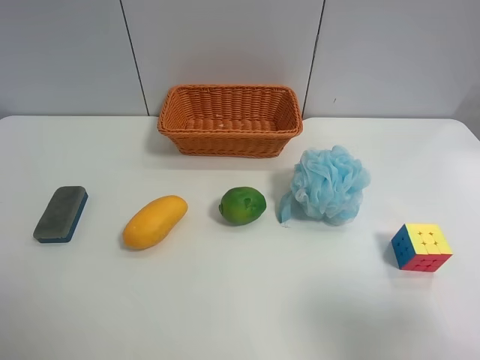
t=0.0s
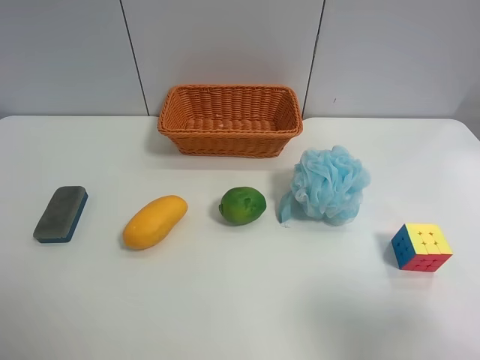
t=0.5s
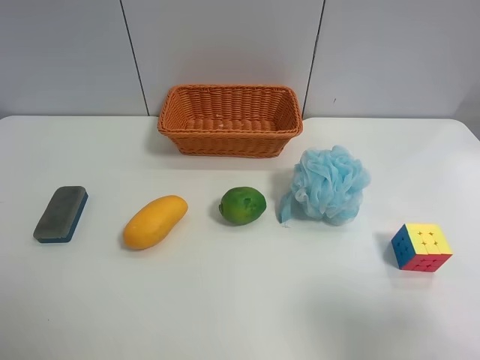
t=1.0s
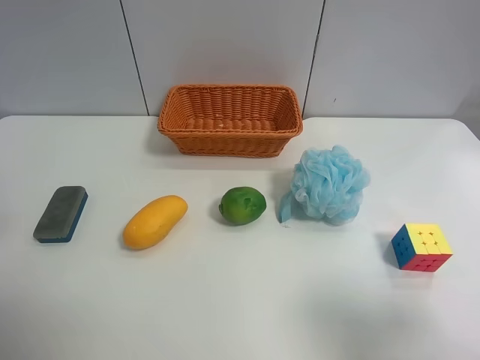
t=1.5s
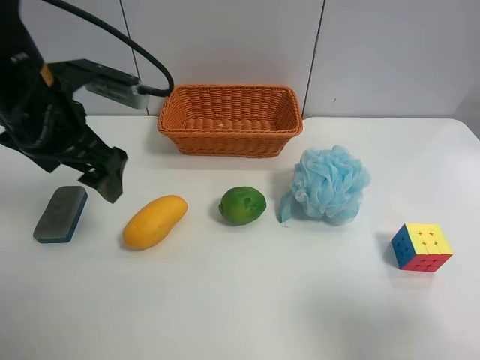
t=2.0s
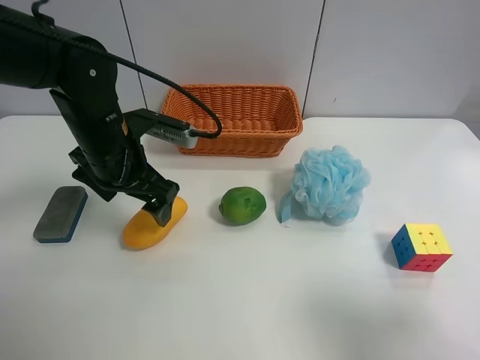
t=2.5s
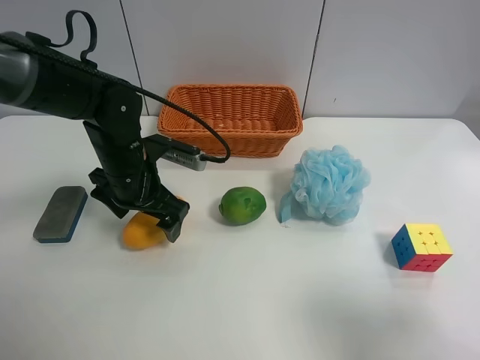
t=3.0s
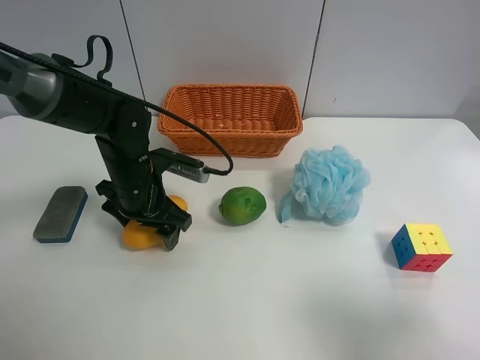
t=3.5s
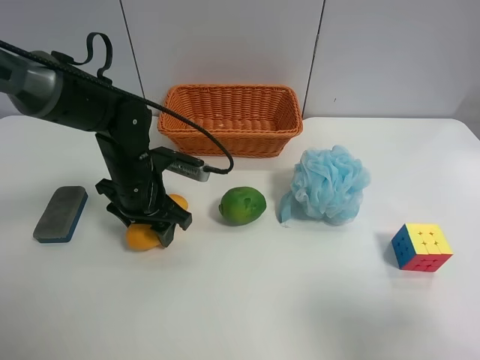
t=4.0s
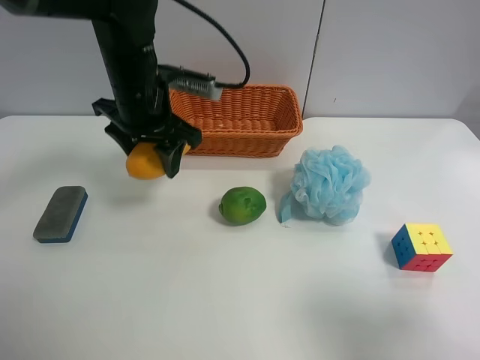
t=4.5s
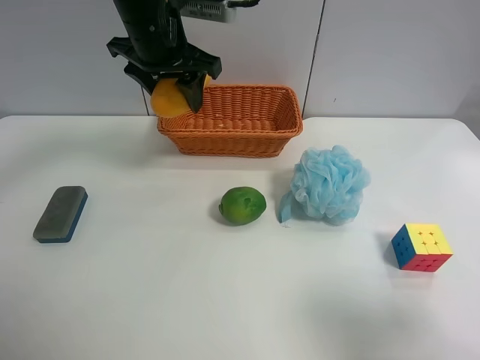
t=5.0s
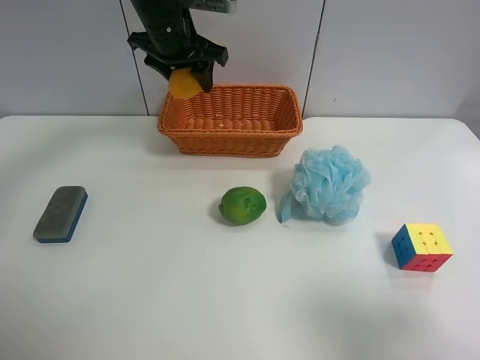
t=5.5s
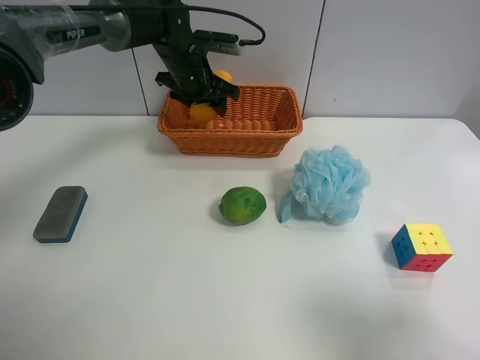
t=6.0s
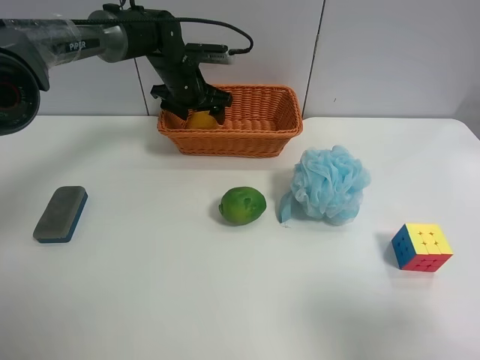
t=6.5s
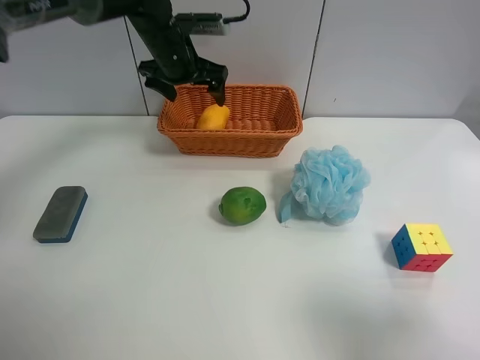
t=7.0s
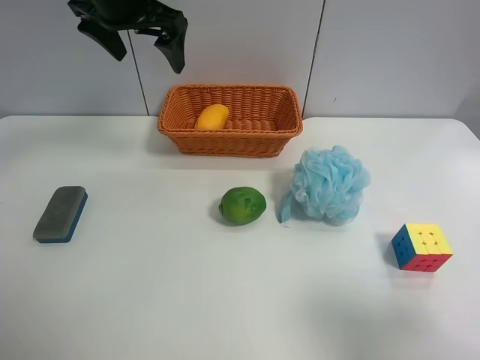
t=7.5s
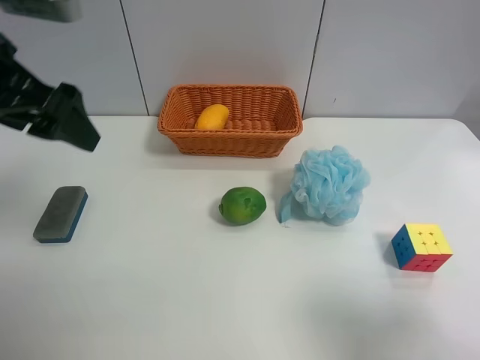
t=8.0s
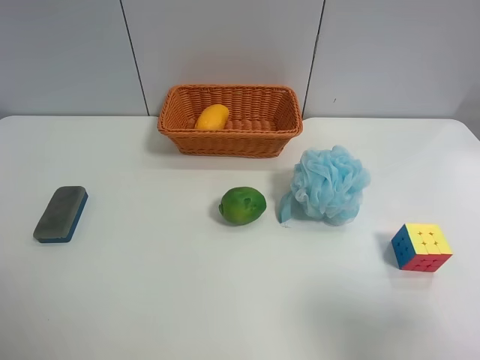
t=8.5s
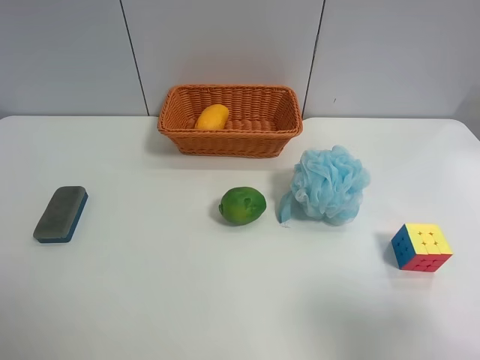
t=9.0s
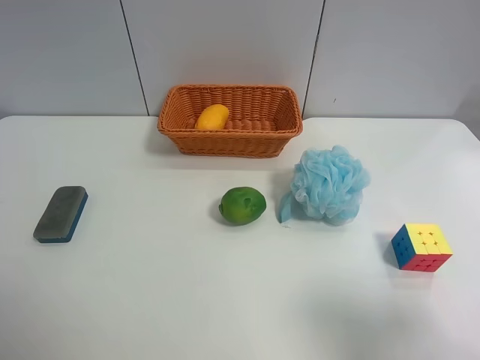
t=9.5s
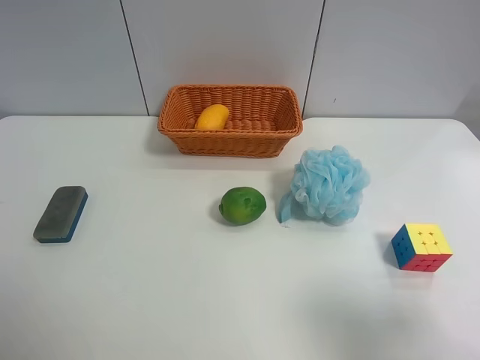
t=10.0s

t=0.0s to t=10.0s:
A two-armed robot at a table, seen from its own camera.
Task of the whole recording: use the left gripper to grab items from the table and place them in the basket.
Step, t=0.0s to t=3.5s: Grasp the mango with the left gripper.
Step, t=4.0s to t=6.5s: Place the mango into the basket with the left gripper.
t=0.0s to t=2.0s: The left gripper goes some 30 cm forward and to the right.
t=2.0s to t=4.0s: The left gripper heads downward, covering roughly 15 cm, and closes its fingers.
t=4.0s to t=6.0s: The left gripper heads forward, covering some 20 cm.
t=6.0s to t=8.0s: The left gripper travels backward, upward and to the left by approximately 35 cm, and opens its fingers.
t=8.0s to t=10.0s: The left gripper heads backward, covering some 20 cm.
